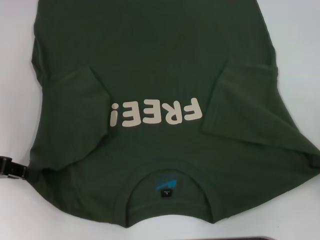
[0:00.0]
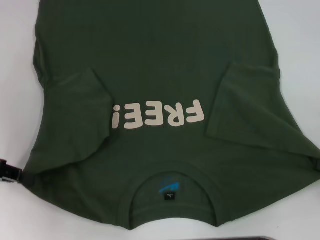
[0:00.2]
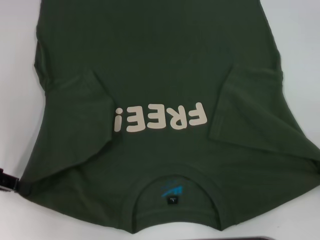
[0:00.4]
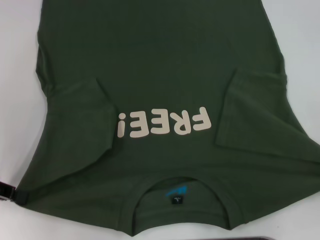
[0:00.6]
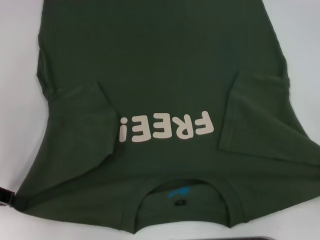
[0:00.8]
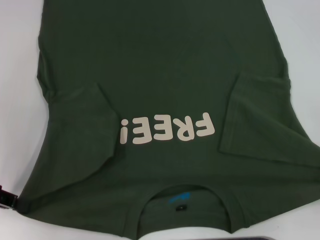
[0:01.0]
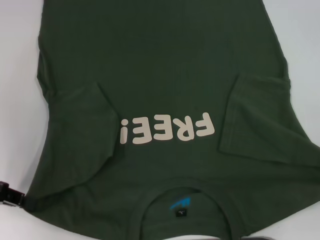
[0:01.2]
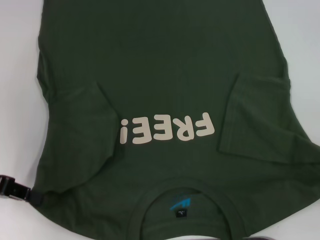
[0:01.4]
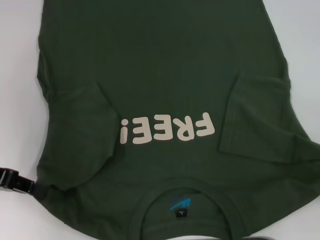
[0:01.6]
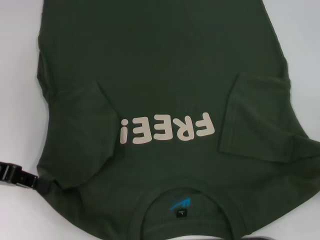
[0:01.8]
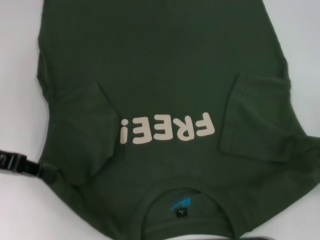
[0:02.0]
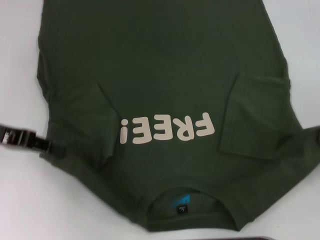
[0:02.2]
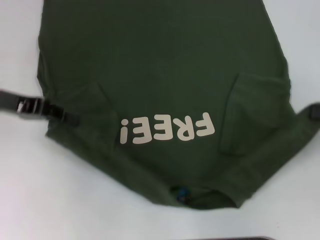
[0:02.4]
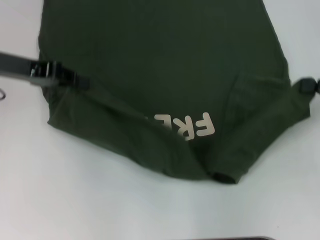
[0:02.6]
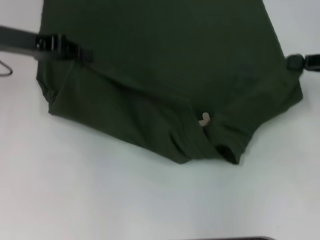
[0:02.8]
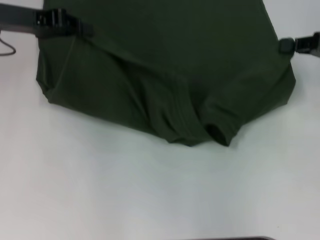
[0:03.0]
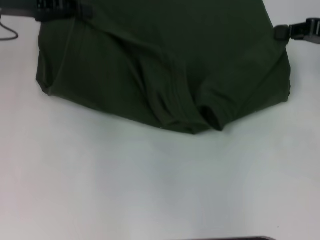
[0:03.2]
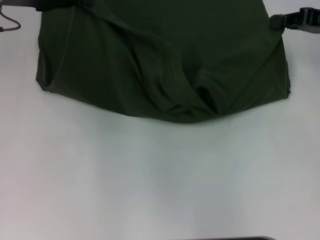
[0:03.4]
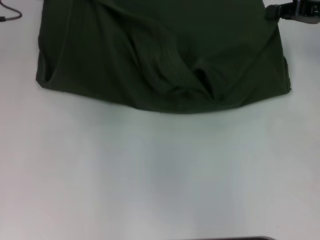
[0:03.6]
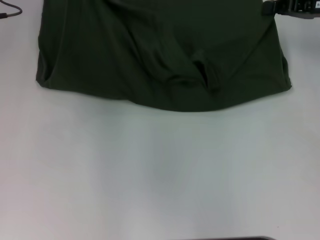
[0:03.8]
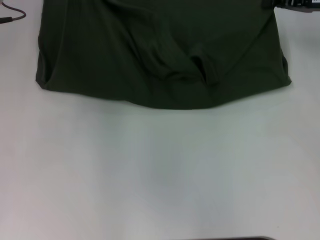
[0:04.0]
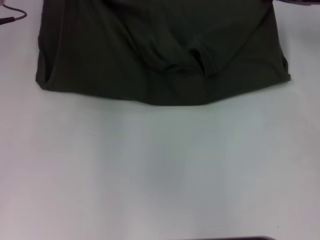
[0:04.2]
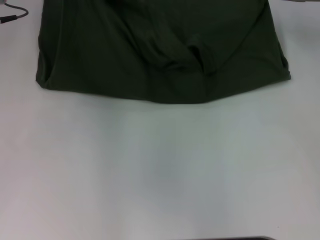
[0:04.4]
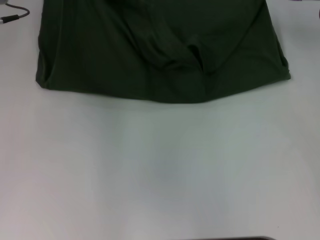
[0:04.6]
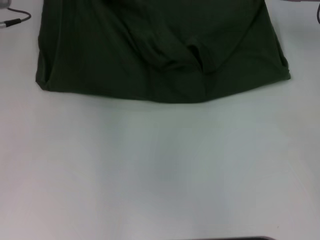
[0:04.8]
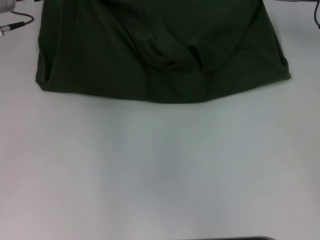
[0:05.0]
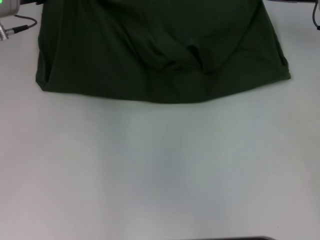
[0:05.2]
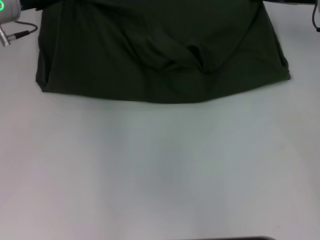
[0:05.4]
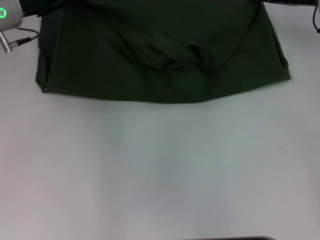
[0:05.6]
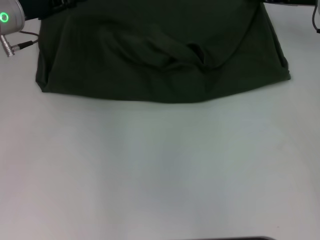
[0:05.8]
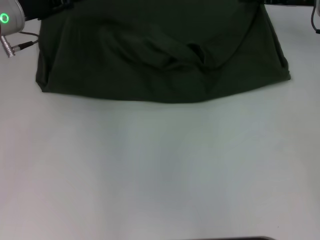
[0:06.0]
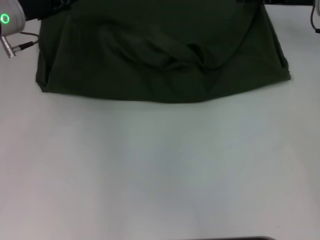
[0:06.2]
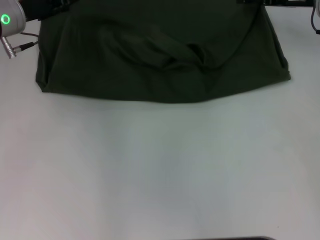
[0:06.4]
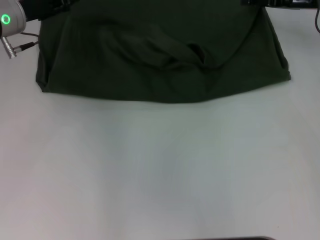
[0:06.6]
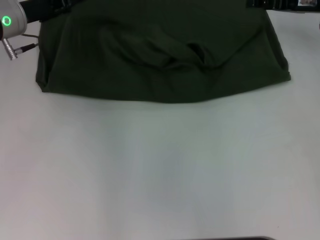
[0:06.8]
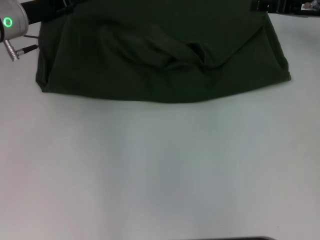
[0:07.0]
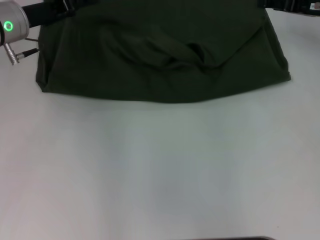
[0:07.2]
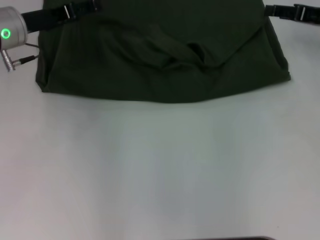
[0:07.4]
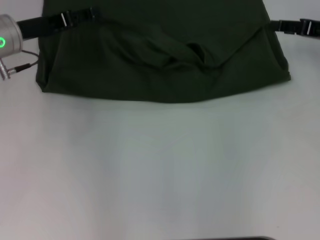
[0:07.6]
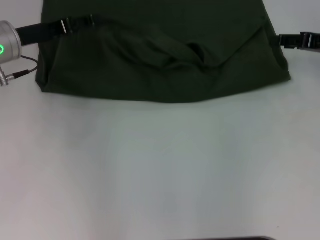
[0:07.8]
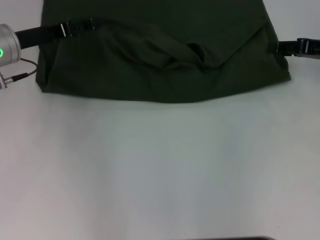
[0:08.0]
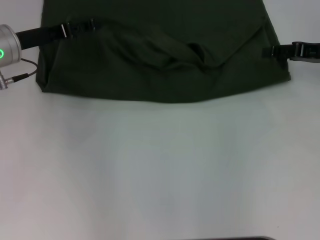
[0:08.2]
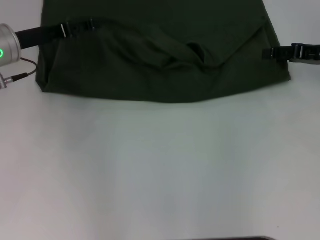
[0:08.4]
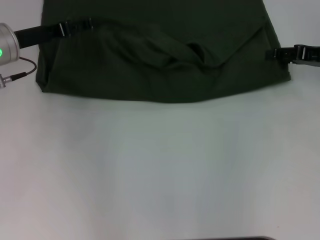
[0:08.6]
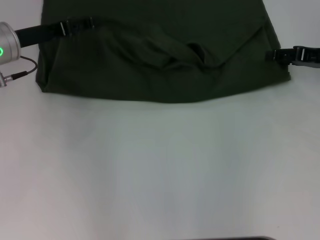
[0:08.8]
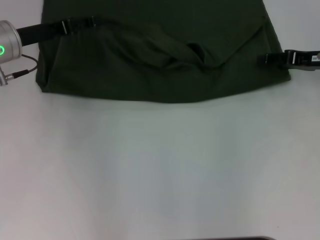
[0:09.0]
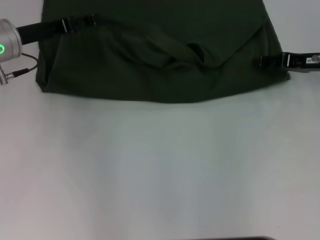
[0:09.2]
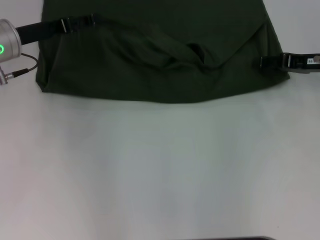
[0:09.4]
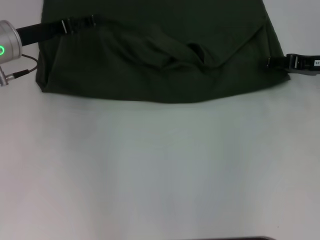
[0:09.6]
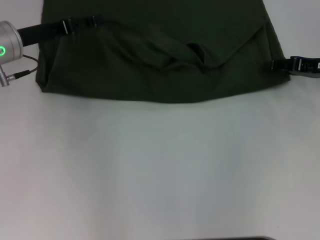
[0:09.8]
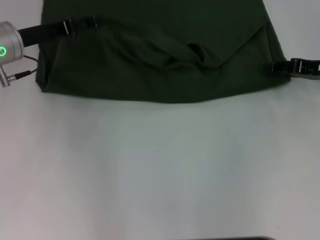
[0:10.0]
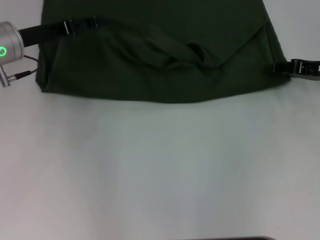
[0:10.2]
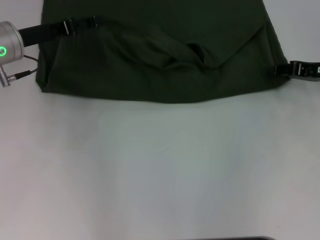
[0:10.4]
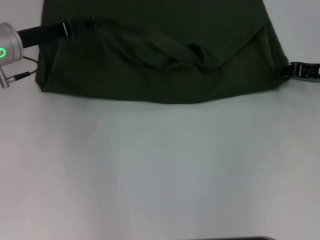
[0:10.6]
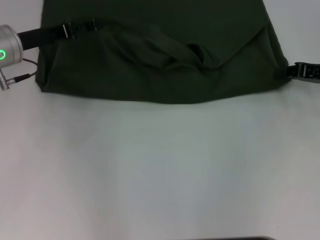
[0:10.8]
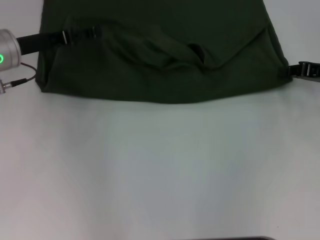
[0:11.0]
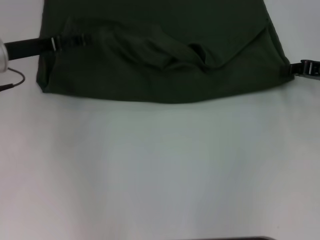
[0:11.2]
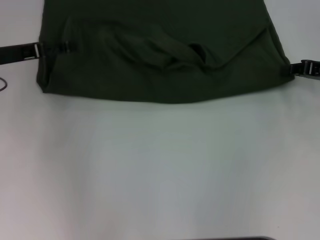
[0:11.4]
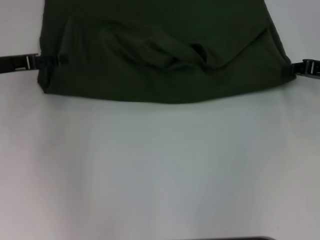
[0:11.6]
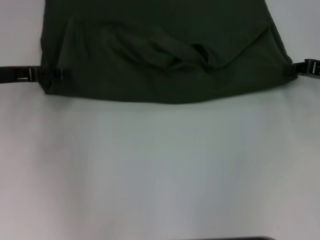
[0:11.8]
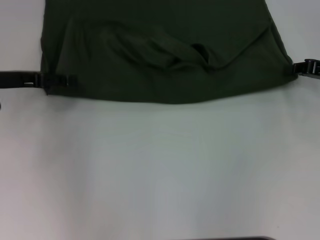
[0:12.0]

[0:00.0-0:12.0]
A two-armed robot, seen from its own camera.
Step, 0:00.0 to 0:06.8: Fold the clothes with your left hand.
Step, 0:00.0 to 0:06.8: Fold the clothes with your right hand.
0:00.0 to 0:01.6: The grippers move only a little.
0:01.6 to 0:03.0: The right gripper shifts roughly 20 cm forward, while the left gripper is displaced forward, upward and to the right by some 15 cm.
0:03.0 to 0:04.4: The right gripper is displaced forward and to the left by roughly 10 cm.
0:04.4 to 0:06.0: The left gripper opens up.
0:06.0 to 0:07.6: The right gripper travels to the right and backward by about 10 cm. Meanwhile the left gripper opens its fingers.
0:07.6 to 0:10.4: The grippers stay close to where they were, moving slightly.
0:10.4 to 0:12.0: The left gripper goes approximately 5 cm to the left; the right gripper closes.

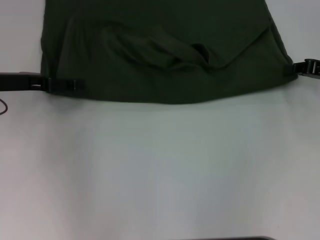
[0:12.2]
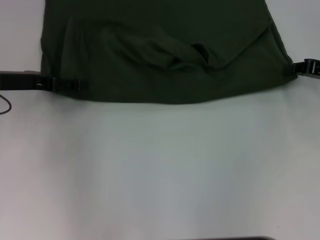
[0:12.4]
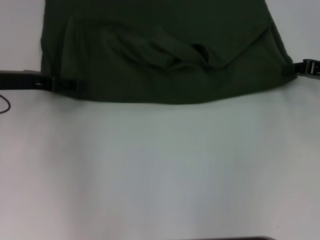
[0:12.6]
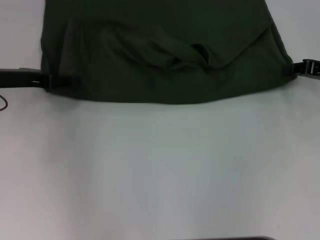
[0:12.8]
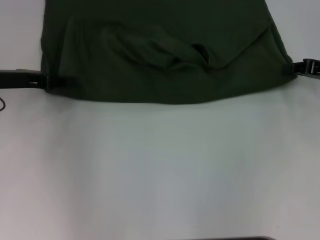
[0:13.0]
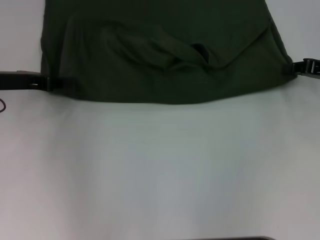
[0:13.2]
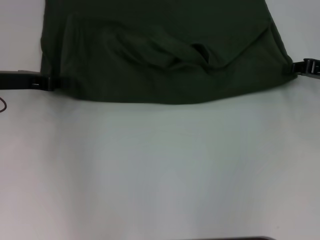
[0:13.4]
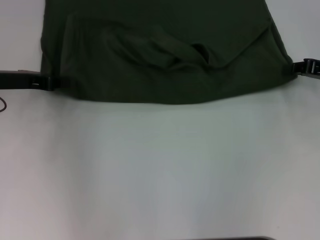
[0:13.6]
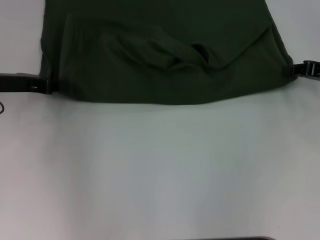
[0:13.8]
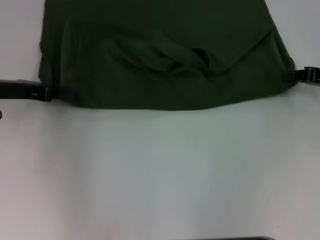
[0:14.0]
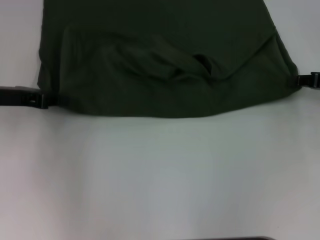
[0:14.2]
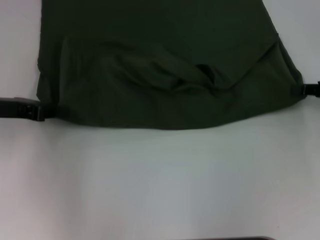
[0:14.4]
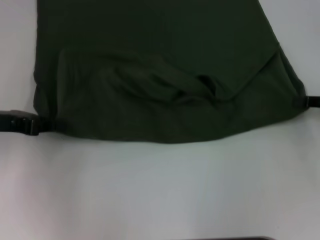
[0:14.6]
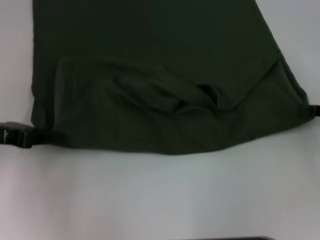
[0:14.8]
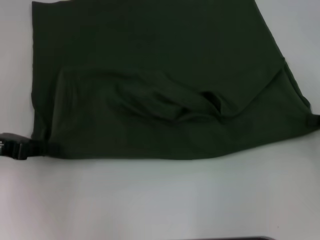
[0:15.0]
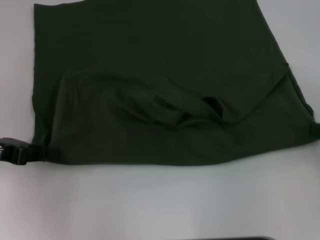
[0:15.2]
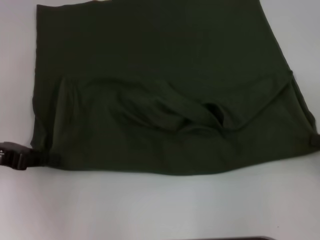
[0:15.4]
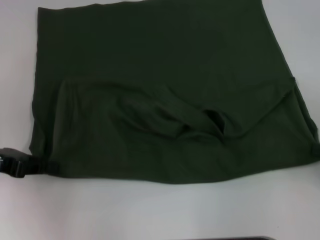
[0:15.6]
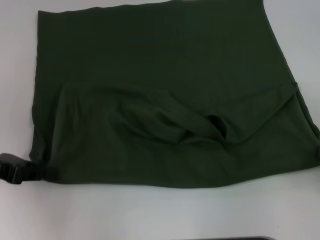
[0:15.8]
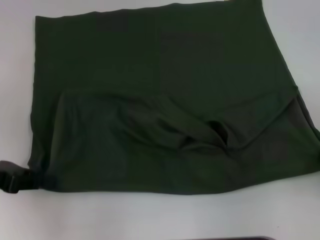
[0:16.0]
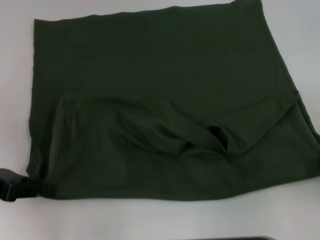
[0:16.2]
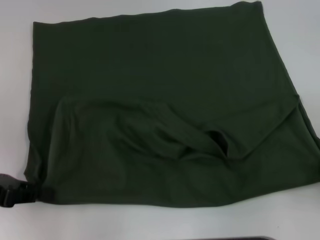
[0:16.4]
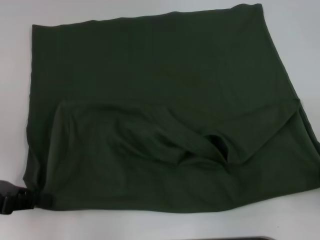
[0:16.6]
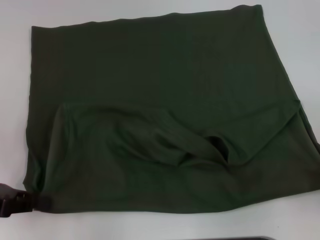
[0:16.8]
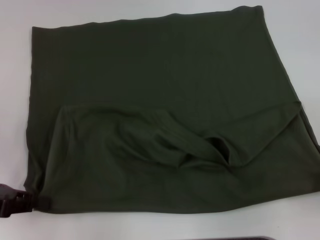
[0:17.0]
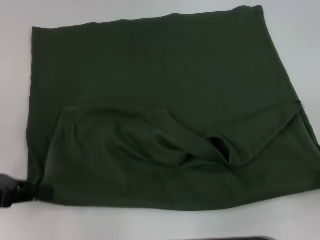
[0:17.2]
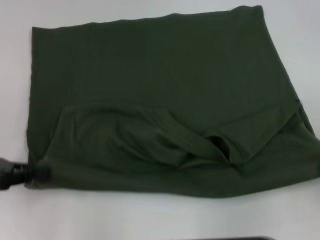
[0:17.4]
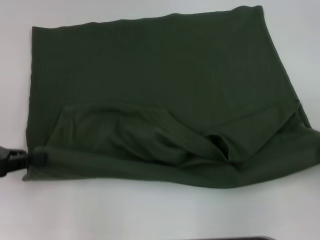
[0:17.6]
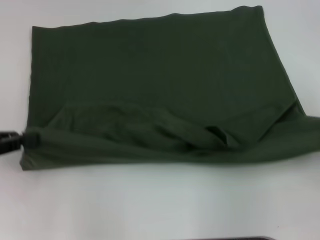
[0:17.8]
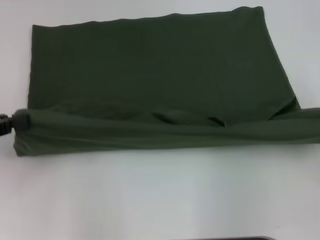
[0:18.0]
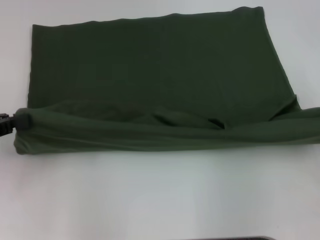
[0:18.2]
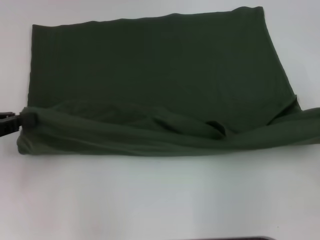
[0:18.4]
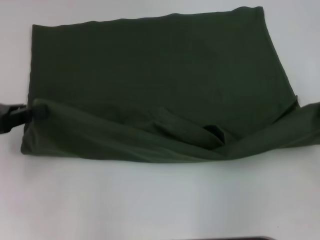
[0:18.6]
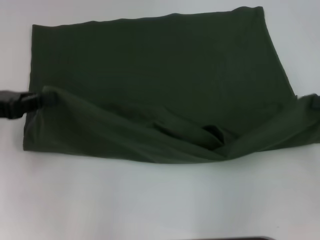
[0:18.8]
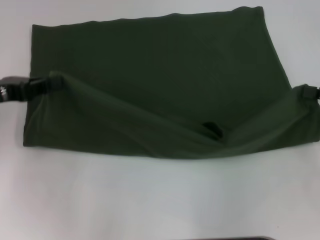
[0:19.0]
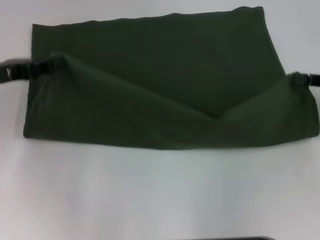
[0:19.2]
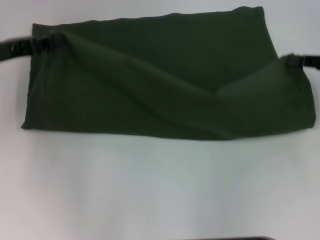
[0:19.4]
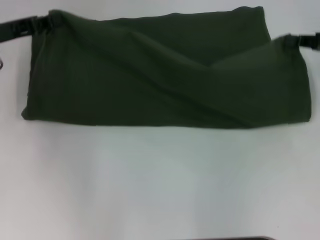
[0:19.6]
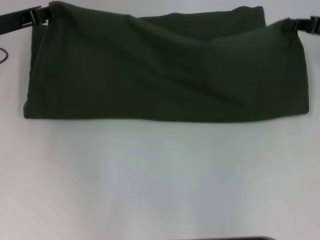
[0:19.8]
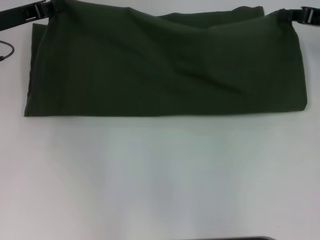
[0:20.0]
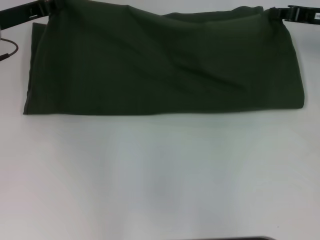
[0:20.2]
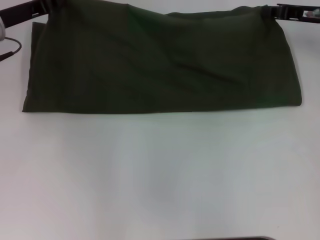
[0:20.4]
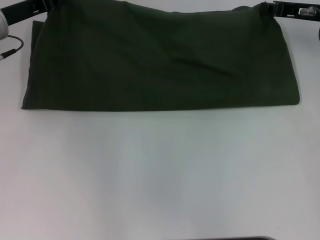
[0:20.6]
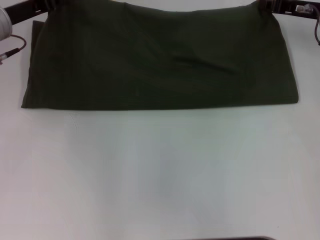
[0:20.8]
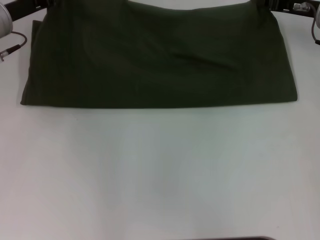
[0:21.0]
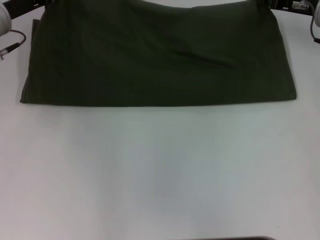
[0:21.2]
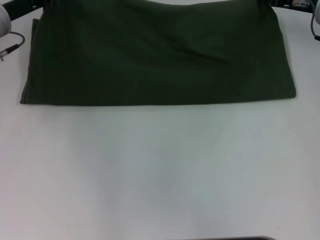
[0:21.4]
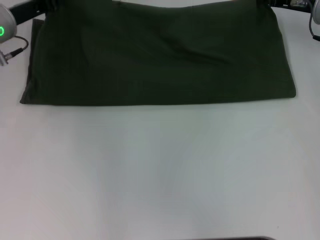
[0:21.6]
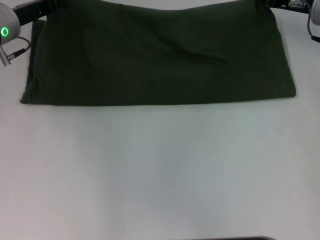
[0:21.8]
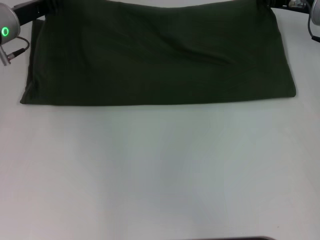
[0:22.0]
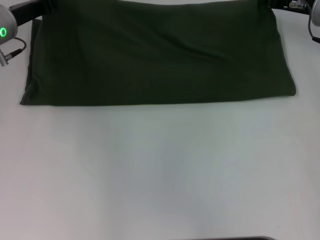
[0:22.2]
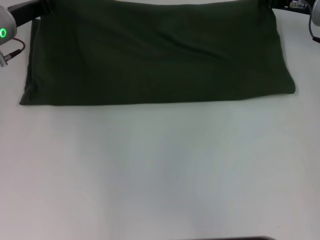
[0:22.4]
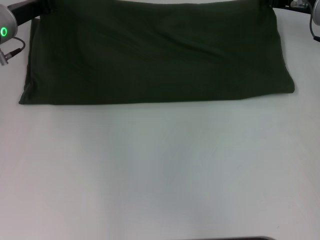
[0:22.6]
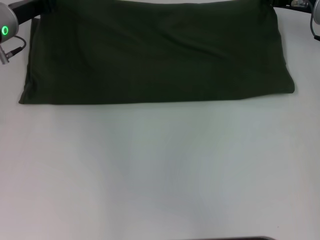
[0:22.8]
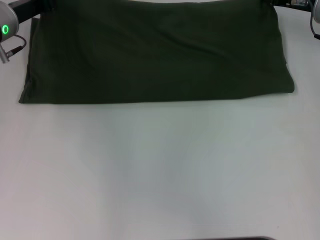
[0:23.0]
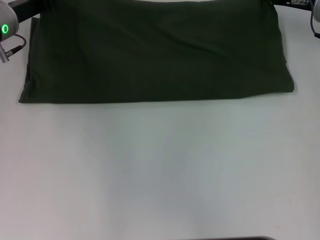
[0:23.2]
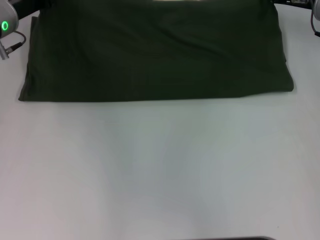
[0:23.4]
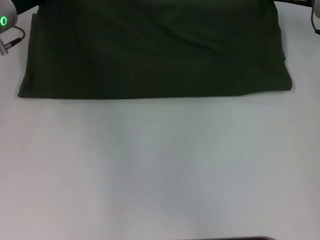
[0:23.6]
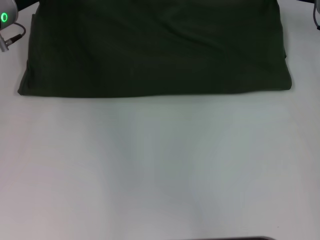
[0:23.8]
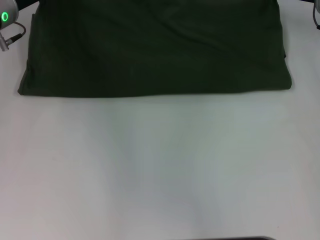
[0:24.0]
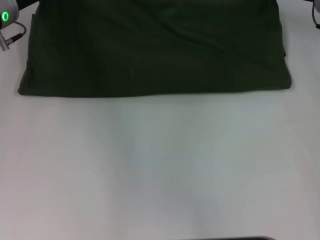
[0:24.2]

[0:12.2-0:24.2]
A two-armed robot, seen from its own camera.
Step, 0:12.2 to 0:17.0: Pull the clothes with your left hand.
Step, 0:12.2 to 0:17.0: Pull the clothes with your right hand.
0:12.2 to 0:13.8: The left gripper closes its fingers.
0:13.8 to 0:15.2: The grippers both shift backward by roughly 10 cm.
0:15.2 to 0:16.6: The left gripper changes place by approximately 5 cm. Meanwhile the right gripper travels backward by some 5 cm.
0:16.6 to 0:18.2: The right gripper moves forward, about 5 cm.
0:18.2 to 0:19.8: The left gripper shifts about 15 cm forward and to the right, while the right gripper heads forward and to the left, covering approximately 15 cm.
0:19.8 to 0:21.2: The right gripper goes approximately 10 cm forward and to the left.
0:21.2 to 0:24.2: The grippers move only a little.
